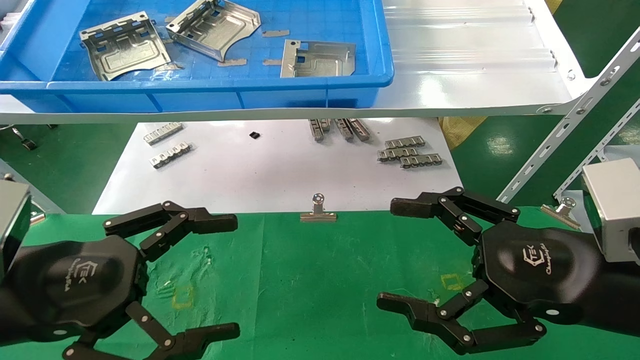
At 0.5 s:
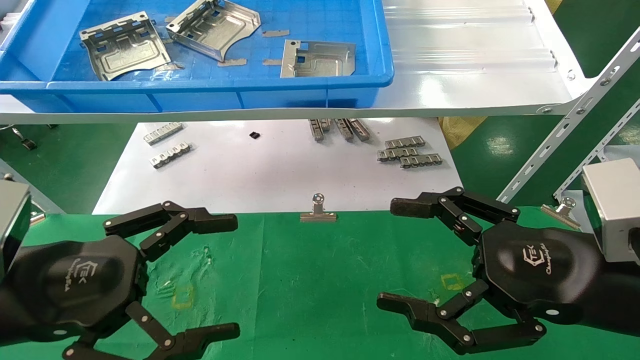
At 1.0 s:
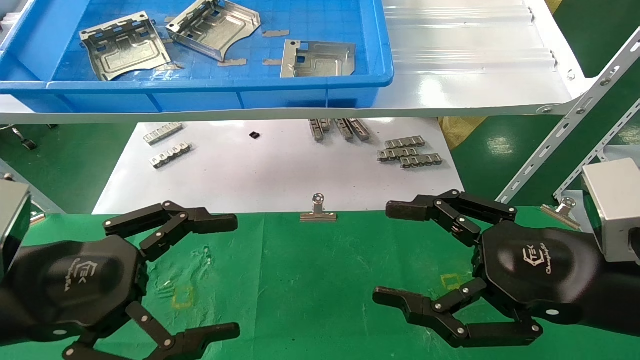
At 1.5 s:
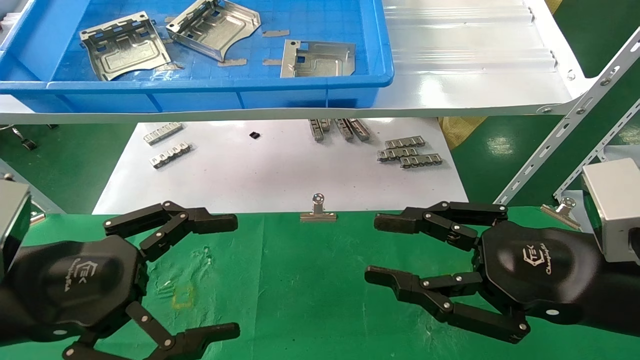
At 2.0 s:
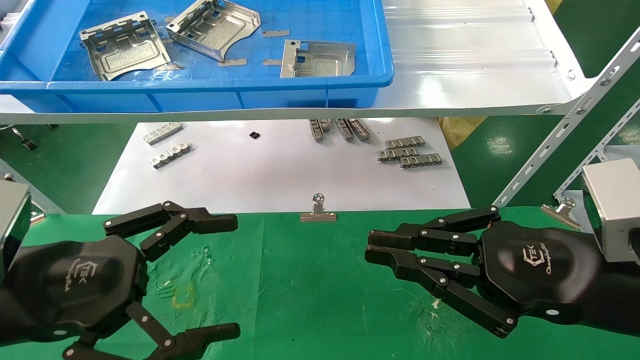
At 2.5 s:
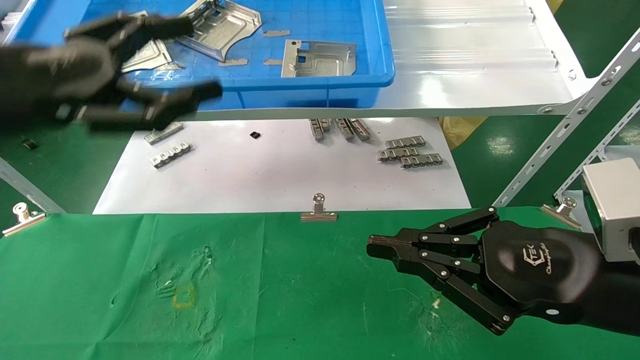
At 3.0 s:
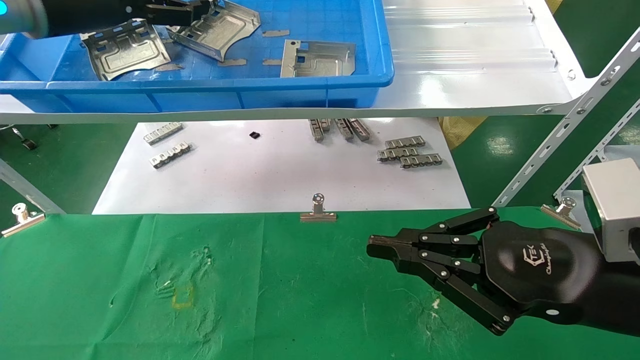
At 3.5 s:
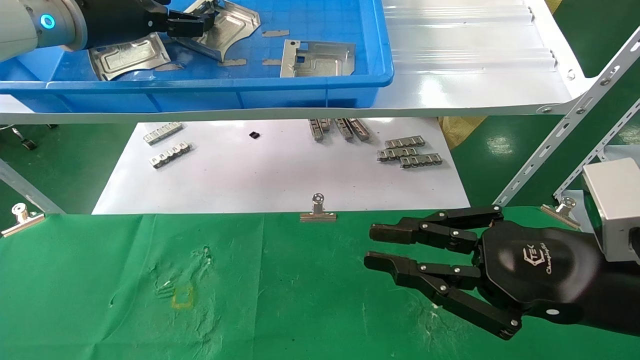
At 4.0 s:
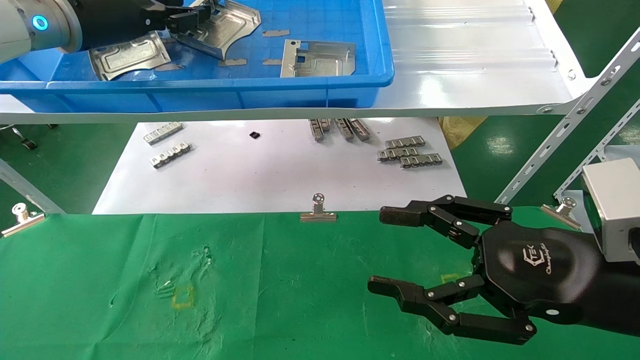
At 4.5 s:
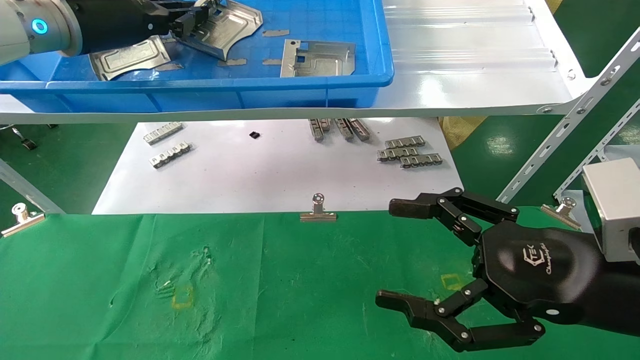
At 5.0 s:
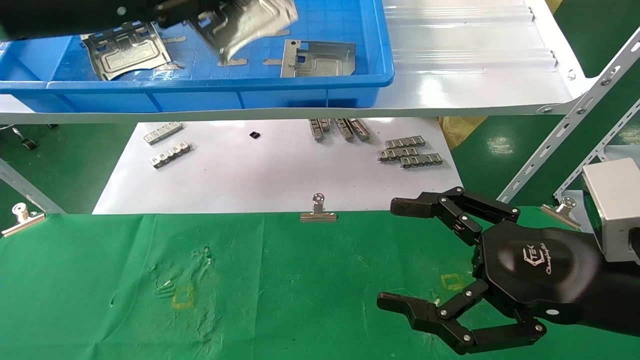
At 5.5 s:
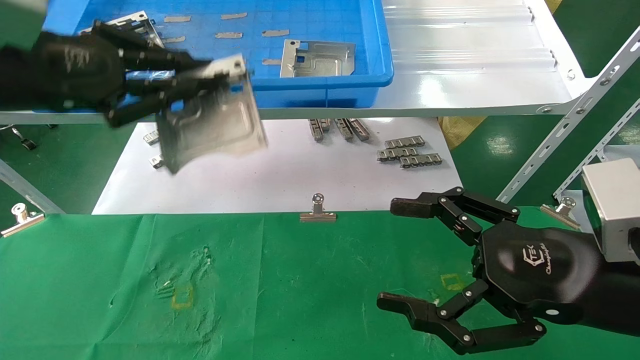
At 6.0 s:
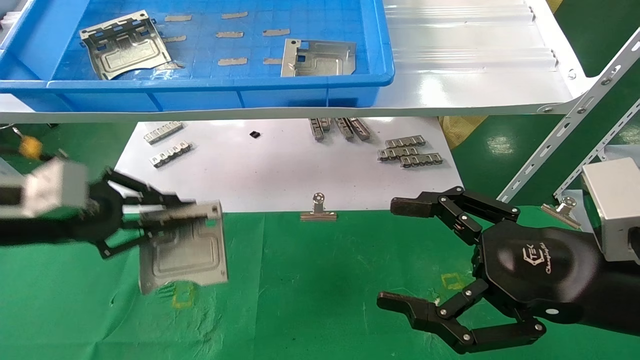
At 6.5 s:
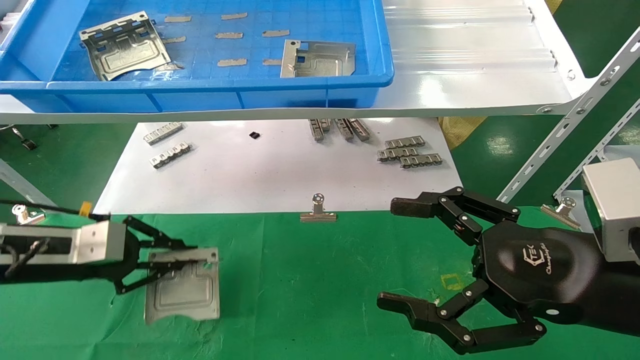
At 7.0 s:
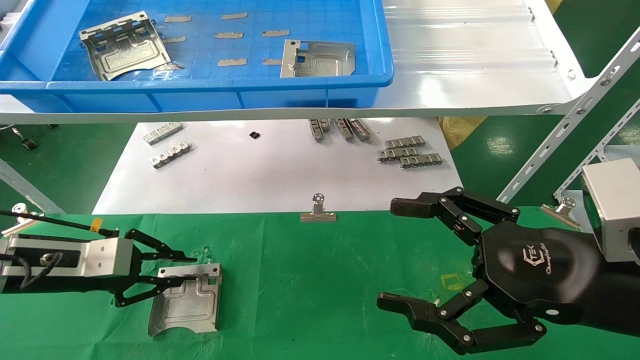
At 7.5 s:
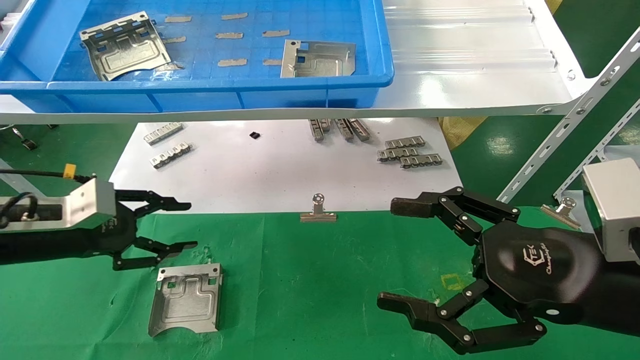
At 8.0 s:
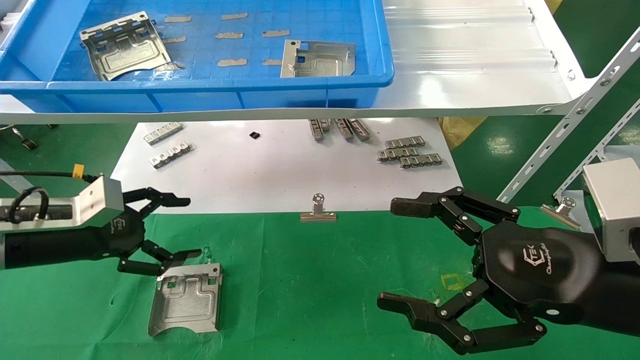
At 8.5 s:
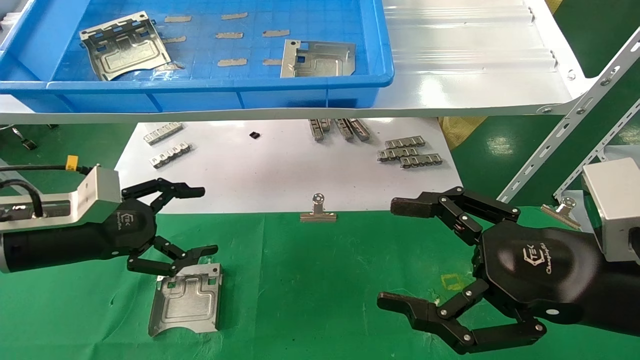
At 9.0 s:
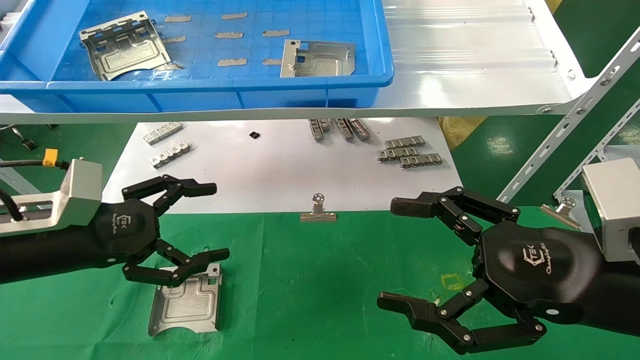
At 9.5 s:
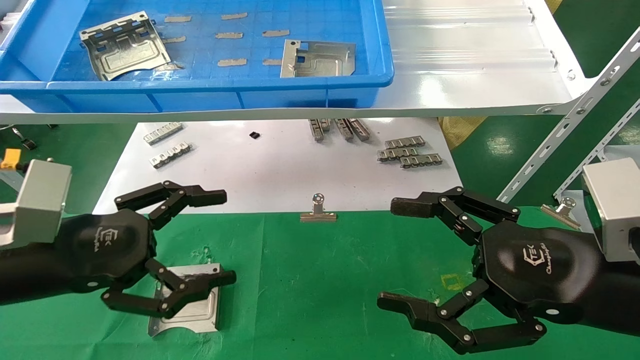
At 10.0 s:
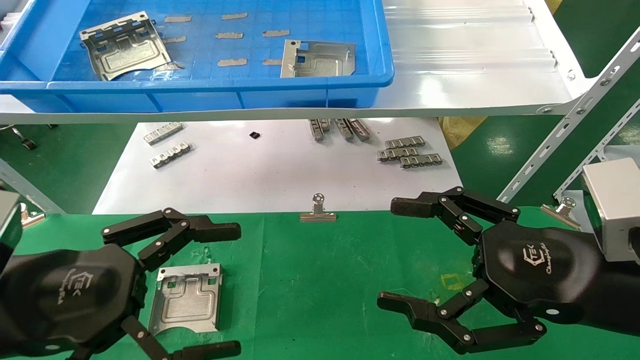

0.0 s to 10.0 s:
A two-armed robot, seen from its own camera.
Task of the whole recording: use the mechanical arm to pick up the parts and place them on the table.
Step, 2.5 to 4.5 s: Pick up the hard drive bracket from the feeding area.
Step, 5.0 to 7.0 s: Place the hard drive bracket into the box.
0.0 to 2.0 s: The right gripper closes its fingers.
2.0 to 4.0 s: The left gripper is displaced forward and upward by about 30 cm, and closes. Meanwhile the right gripper opens its fingers.
4.0 to 6.0 s: The right gripper opens. Meanwhile the left gripper shifts about 20 cm downward and backward, and closes.
6.0 to 8.0 s: The left gripper heads downward, covering about 5 cm, and opens its fingers.
8.0 to 10.0 s: The left gripper goes some 15 cm backward and to the right.
